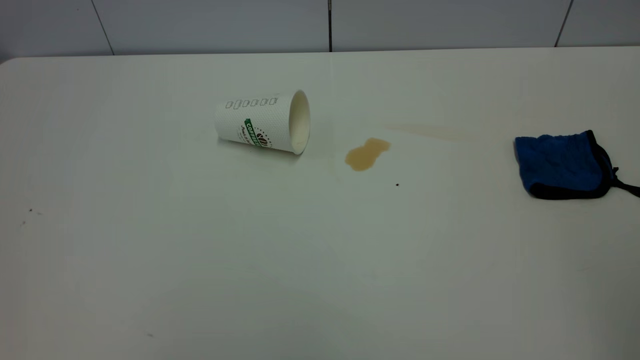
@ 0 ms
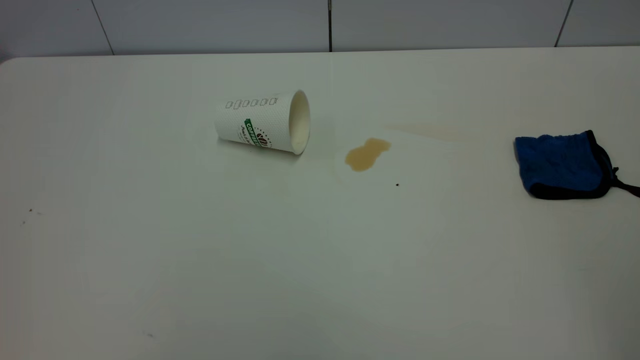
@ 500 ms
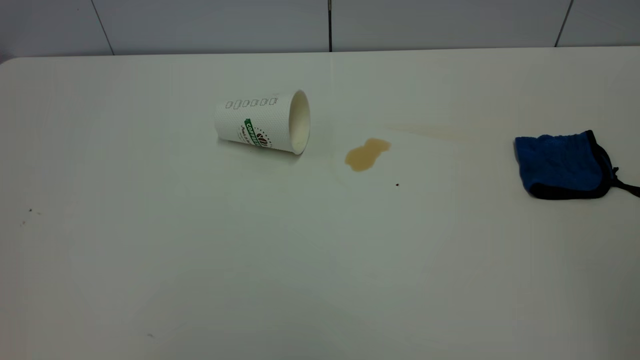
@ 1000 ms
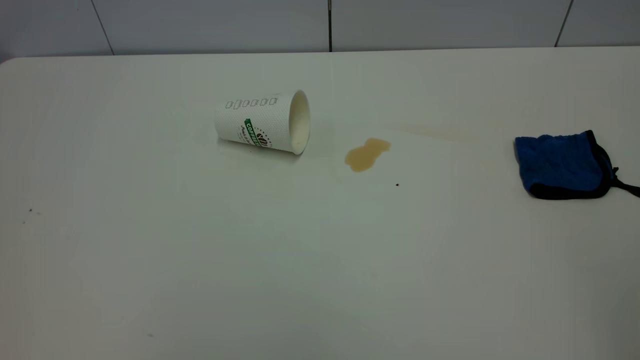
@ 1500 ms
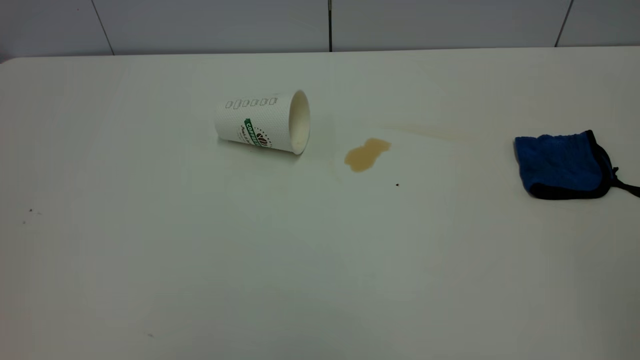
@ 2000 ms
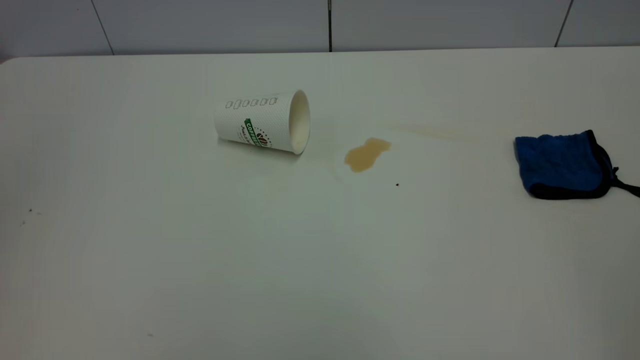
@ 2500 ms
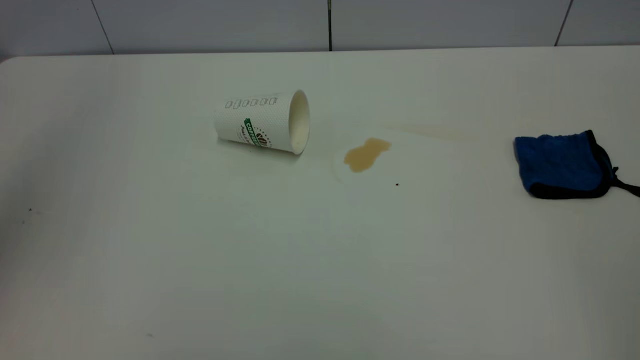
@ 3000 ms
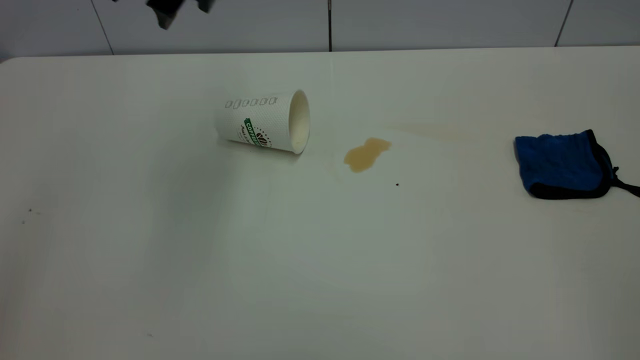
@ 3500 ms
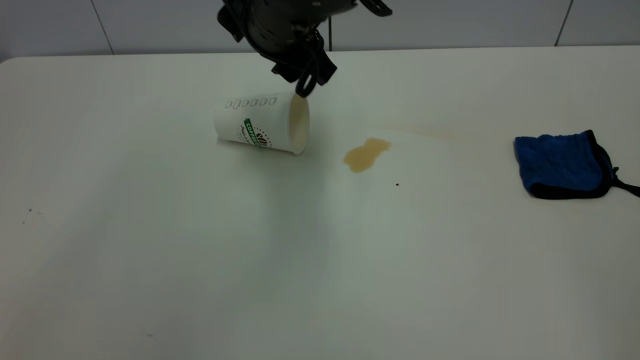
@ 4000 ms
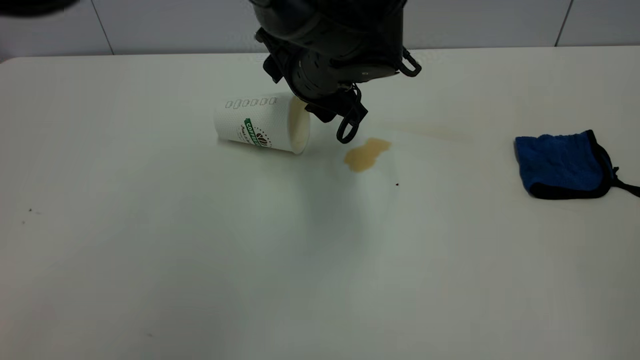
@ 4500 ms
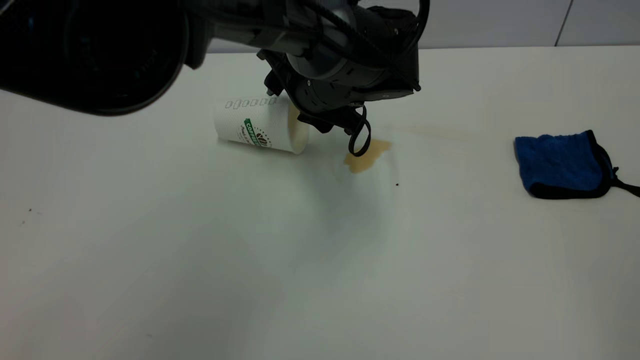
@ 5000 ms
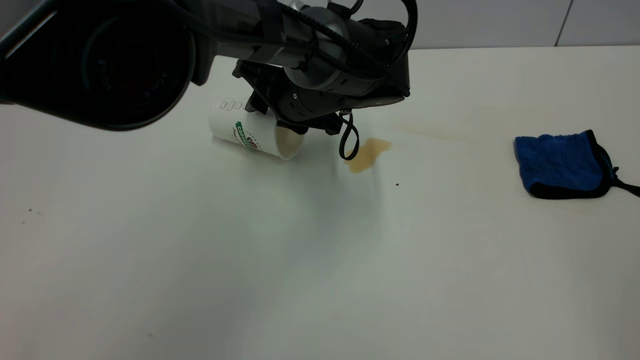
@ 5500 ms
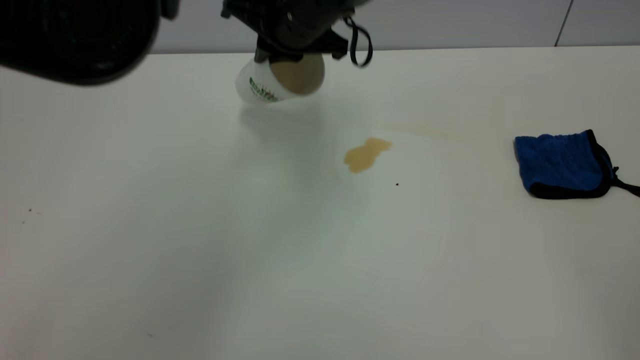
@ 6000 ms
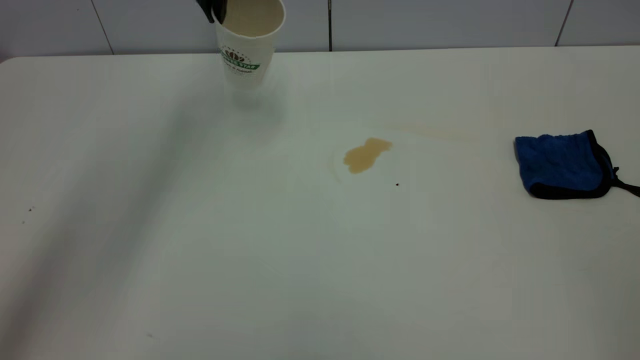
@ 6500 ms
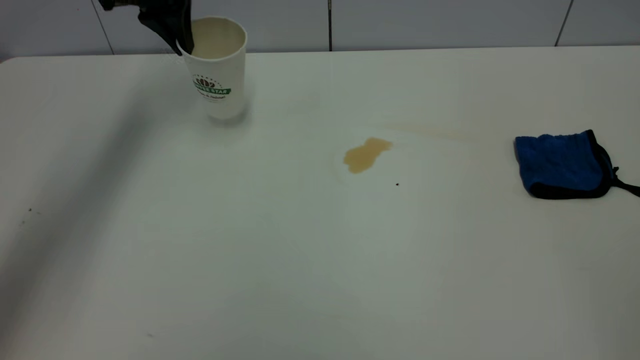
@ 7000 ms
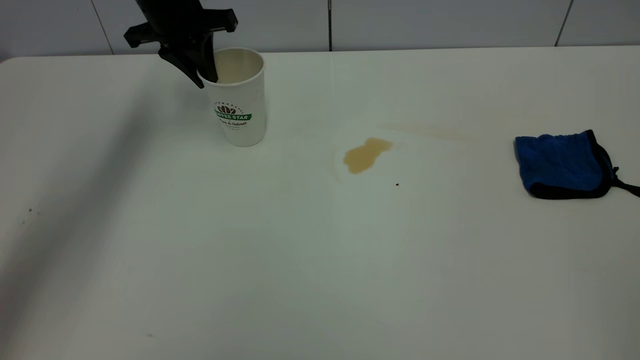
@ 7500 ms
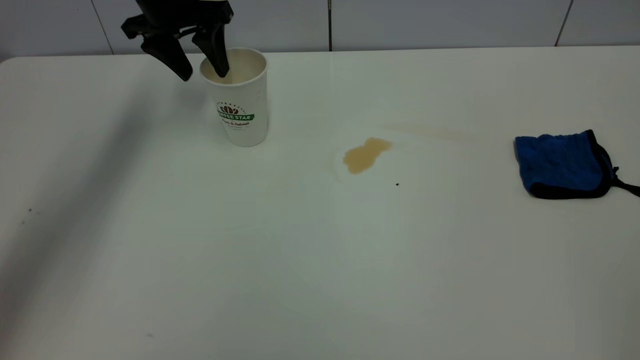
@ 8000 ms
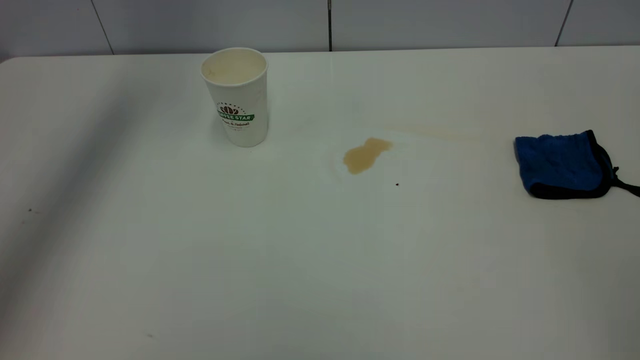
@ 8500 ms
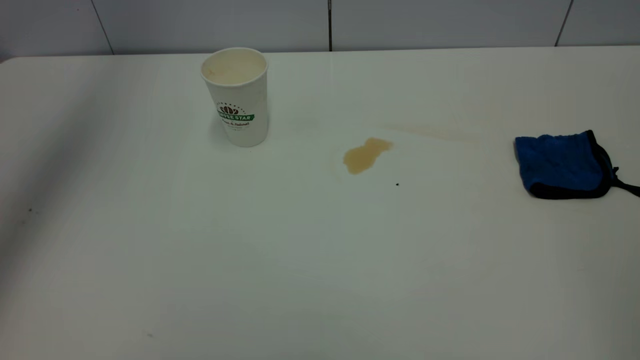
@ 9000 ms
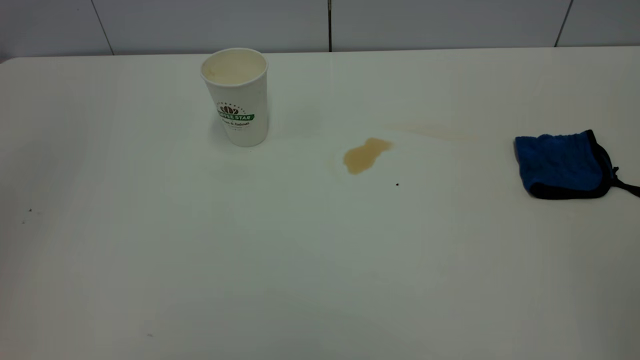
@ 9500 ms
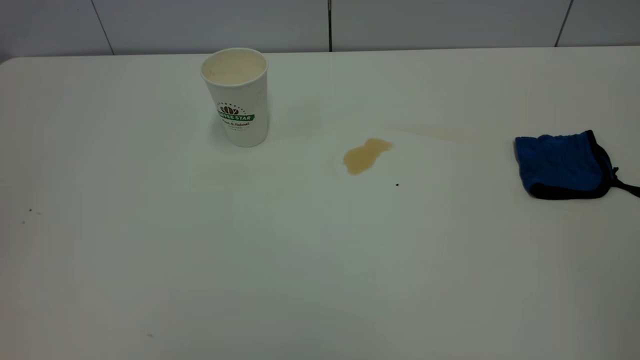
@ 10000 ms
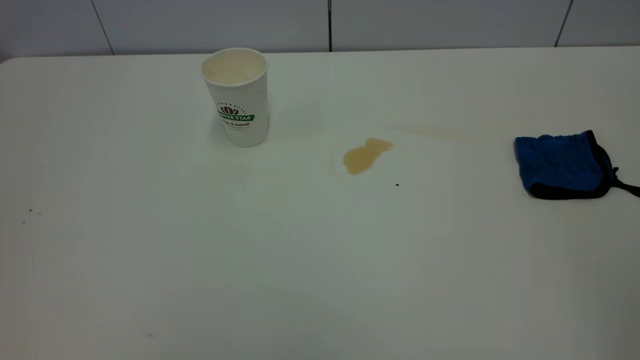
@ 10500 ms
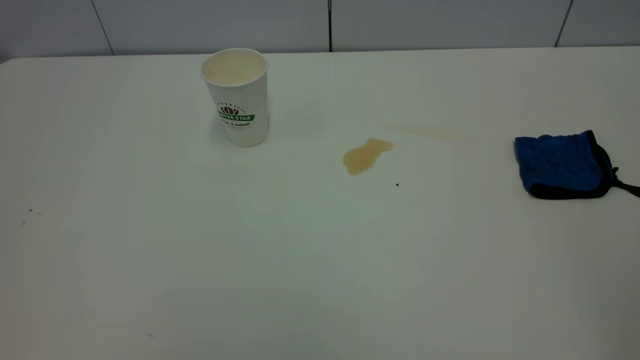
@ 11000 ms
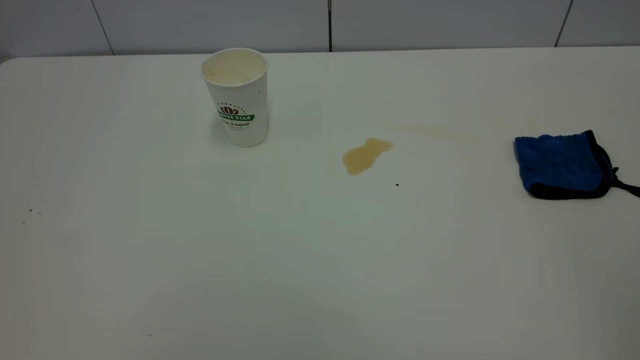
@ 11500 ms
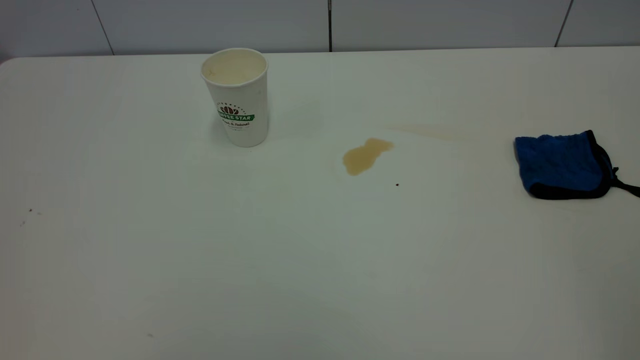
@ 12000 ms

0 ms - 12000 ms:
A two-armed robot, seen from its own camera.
Task of the whole recording: the left gripper pick up the fallen cup and place it upright, the right gripper grasp the blue rag and wipe the tea stain on the table, the right gripper put the blue rag back in its original position.
Step, 0 ms - 8000 ms: Stand the paper cup upright.
2000 ms - 4000 ms: The left gripper is displaced forward, to the right and downward by roughly 50 cm.
4000 ms - 6000 ms: The left gripper shifts some 5 cm forward, moves about 10 cm downward and comes back, and closes its fingers.
6000 ms - 8000 ms: The left gripper shifts about 20 cm to the left and forward, and opens its fingers.
8000 ms - 10000 ms: The left gripper travels backward by about 50 cm, and closes.

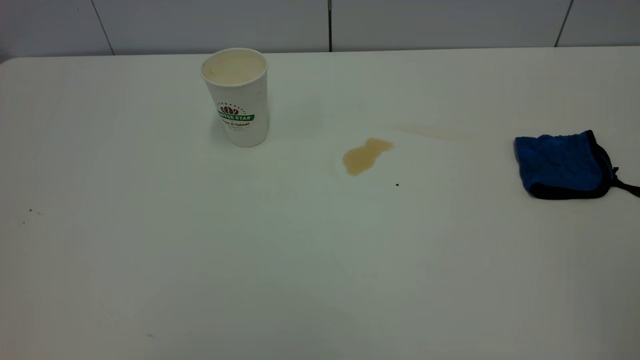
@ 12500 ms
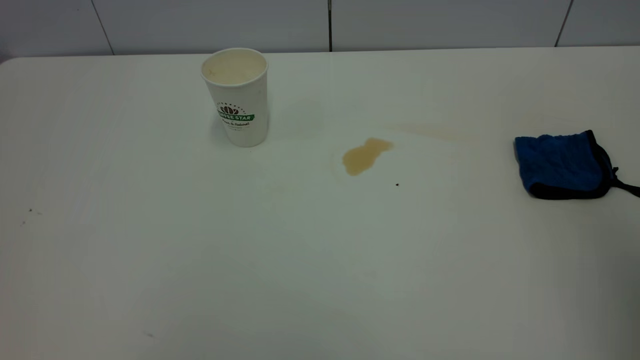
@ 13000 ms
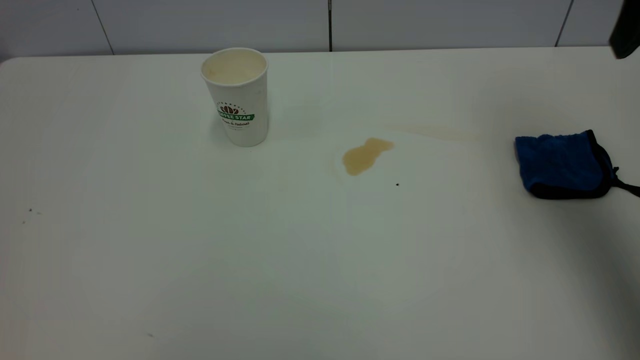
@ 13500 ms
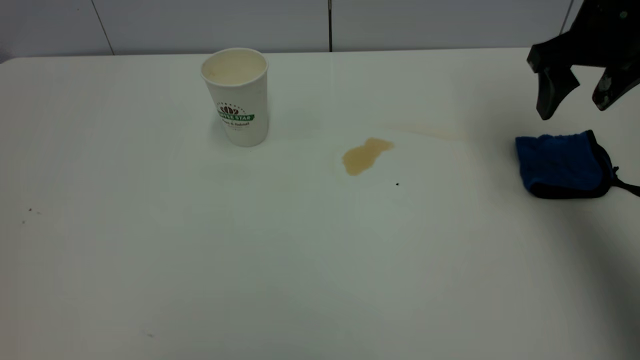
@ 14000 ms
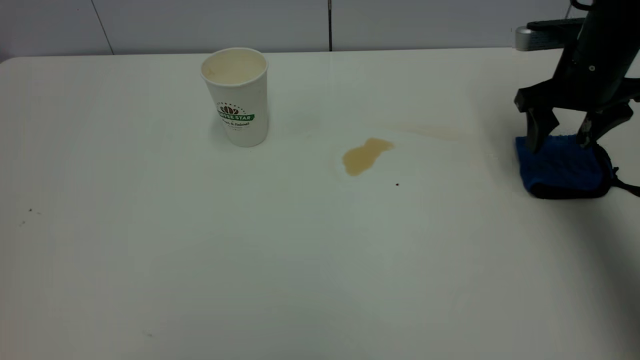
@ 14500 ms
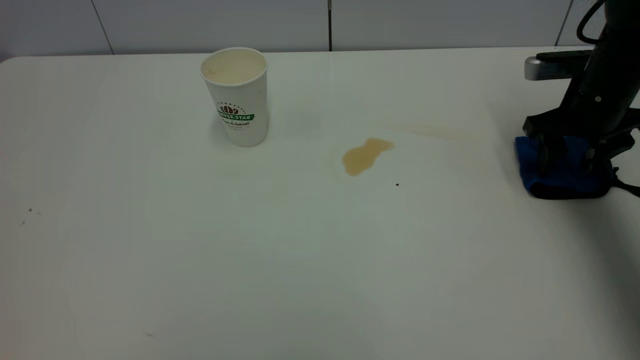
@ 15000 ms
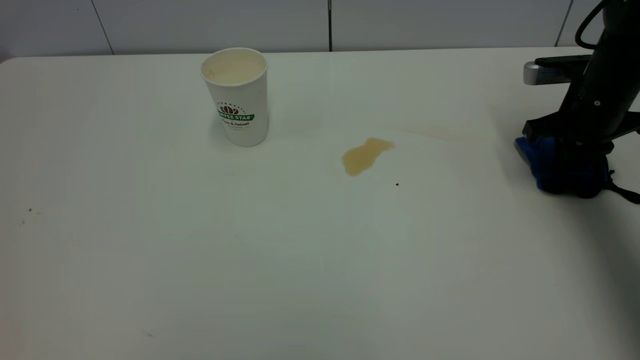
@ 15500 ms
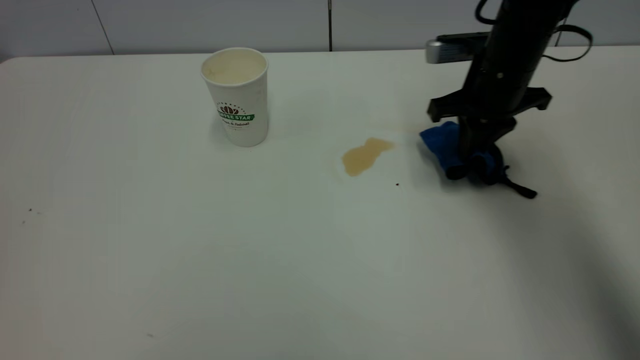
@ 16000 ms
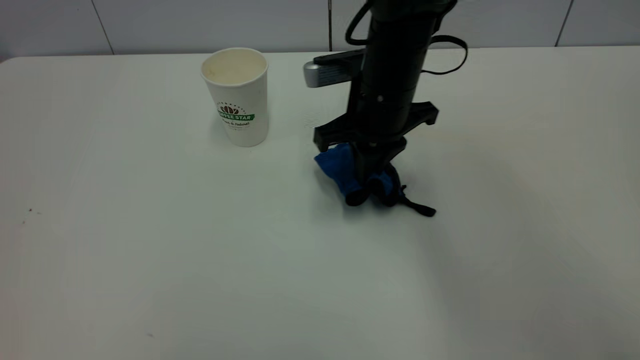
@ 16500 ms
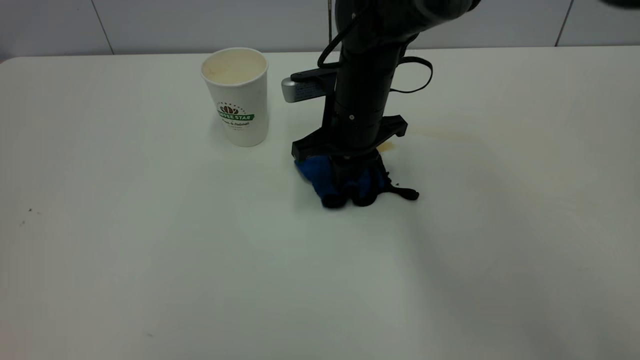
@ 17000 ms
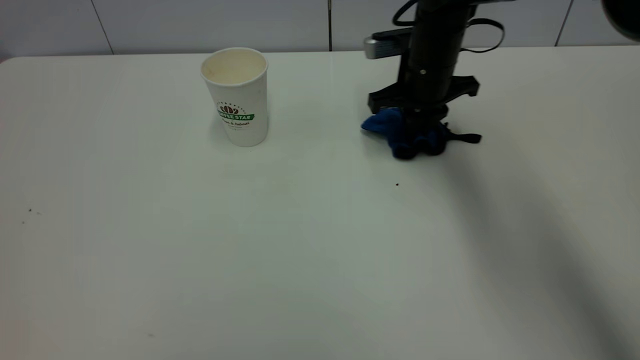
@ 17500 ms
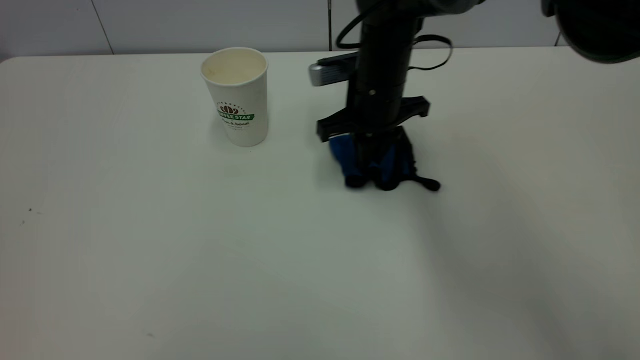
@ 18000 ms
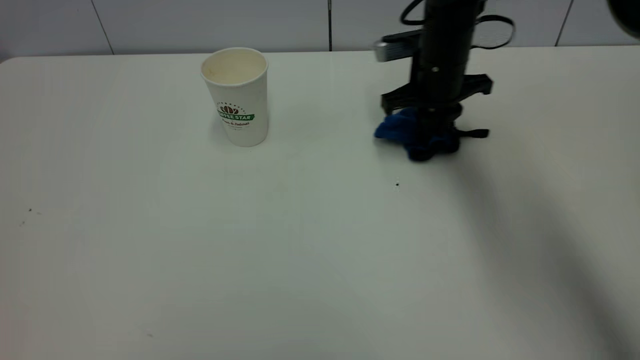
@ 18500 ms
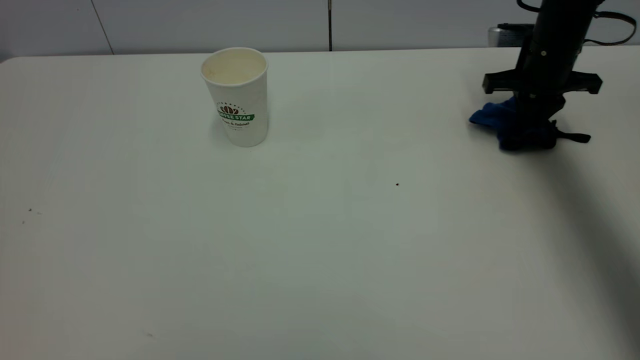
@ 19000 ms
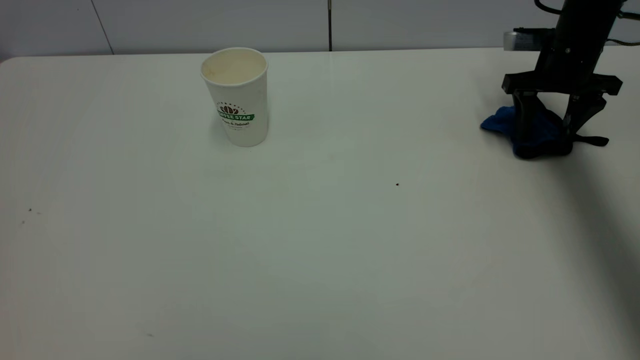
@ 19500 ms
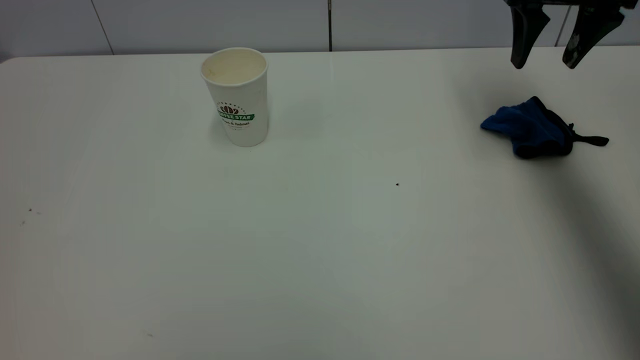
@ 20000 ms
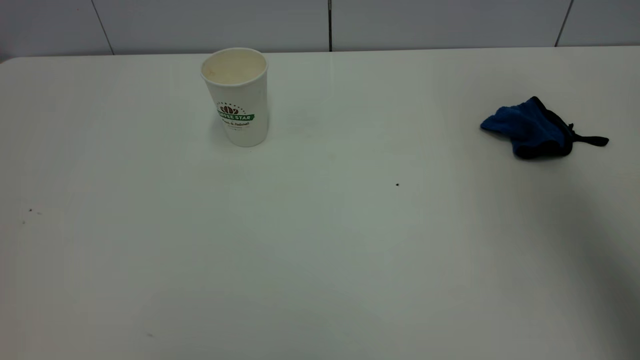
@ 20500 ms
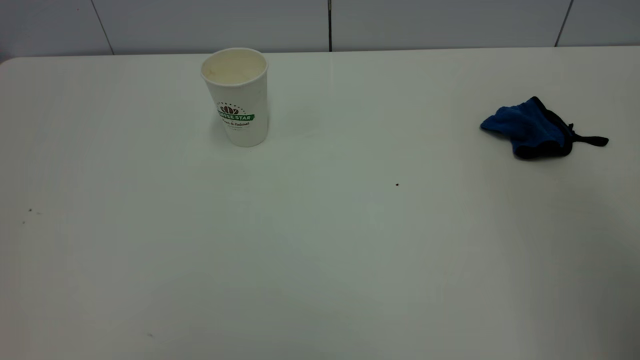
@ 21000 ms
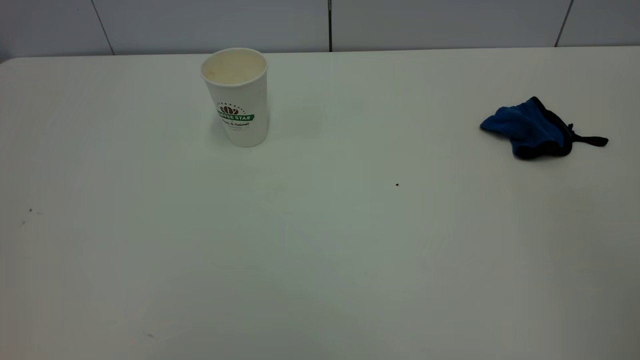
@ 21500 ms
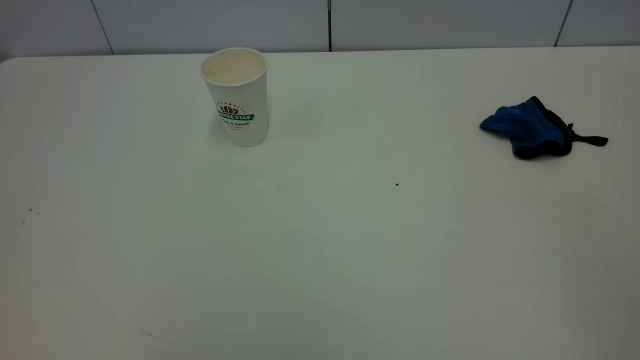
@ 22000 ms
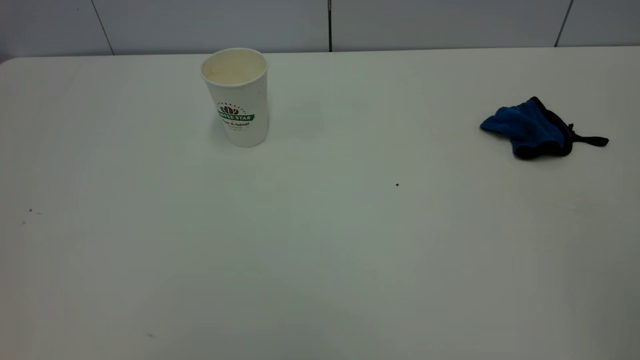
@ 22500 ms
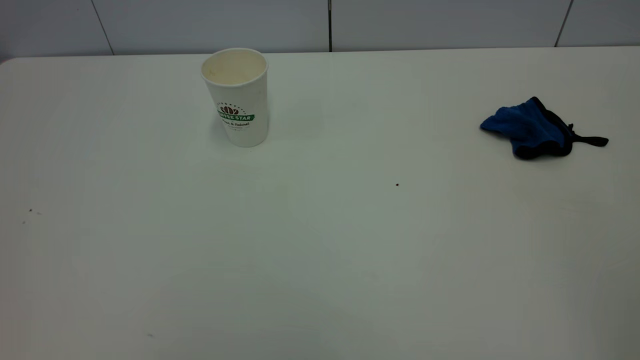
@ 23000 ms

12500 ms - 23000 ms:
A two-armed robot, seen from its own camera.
Task of the whole recording: the left gripper pick up the fallen cup and place it upright, the right gripper grasp the blue rag and wipe the tea stain on the table, the right gripper put the blue rag back in its original position.
Step, 12500 ms - 19500 ms: Wipe the stains off the table with a rag.
12500 ms - 14500 ms: The right gripper heads forward and downward, covering some 50 cm.
14500 ms - 16500 ms: The right gripper is displaced to the left by approximately 25 cm, and closes.
16500 ms - 19000 ms: The right gripper goes left and right, about 25 cm each way, reversing 2 times.
19000 ms - 21000 ms: The right gripper goes roughly 40 cm backward and upward, and opens its fingers.
